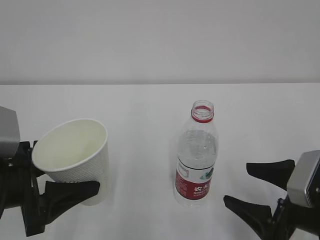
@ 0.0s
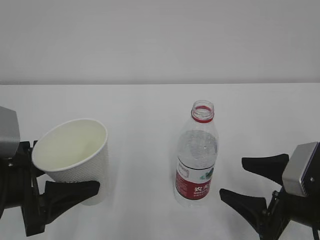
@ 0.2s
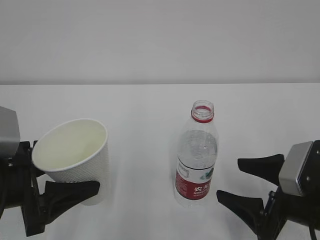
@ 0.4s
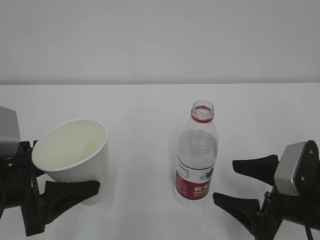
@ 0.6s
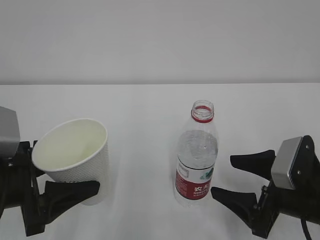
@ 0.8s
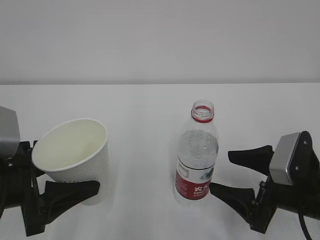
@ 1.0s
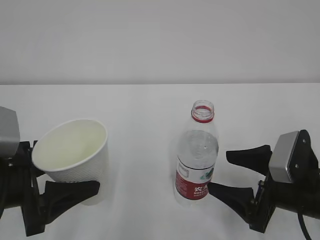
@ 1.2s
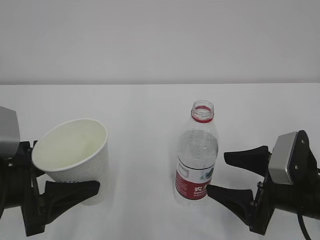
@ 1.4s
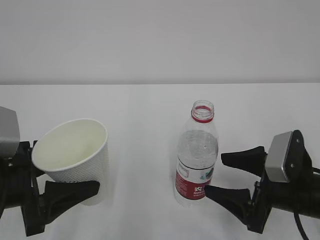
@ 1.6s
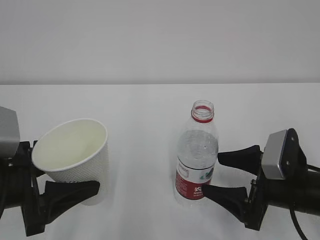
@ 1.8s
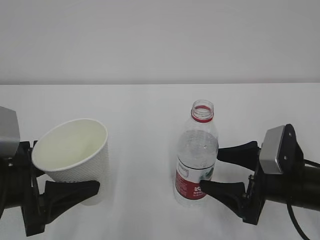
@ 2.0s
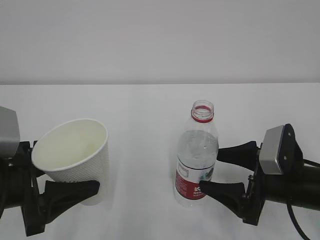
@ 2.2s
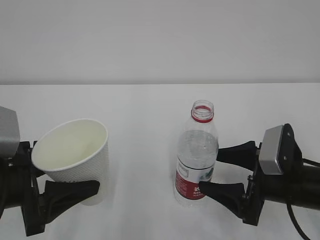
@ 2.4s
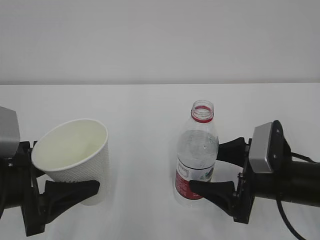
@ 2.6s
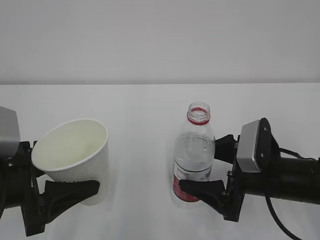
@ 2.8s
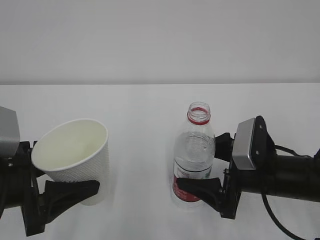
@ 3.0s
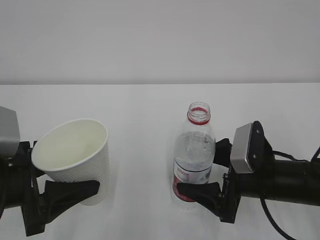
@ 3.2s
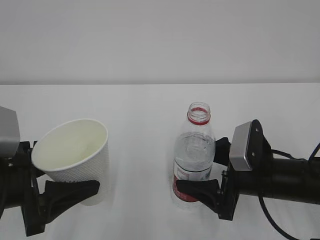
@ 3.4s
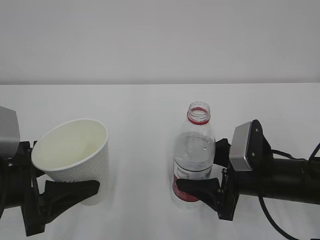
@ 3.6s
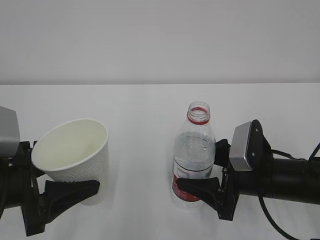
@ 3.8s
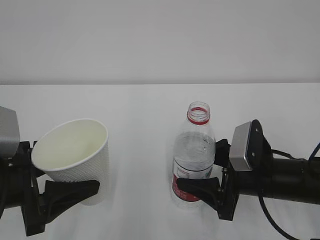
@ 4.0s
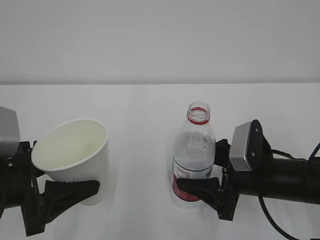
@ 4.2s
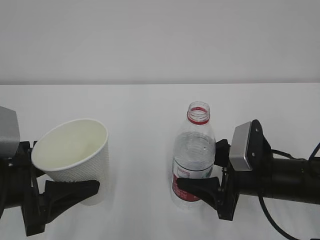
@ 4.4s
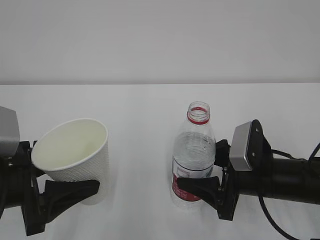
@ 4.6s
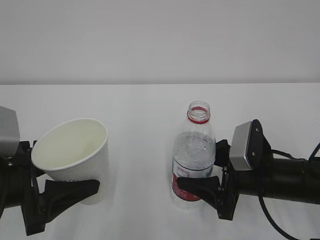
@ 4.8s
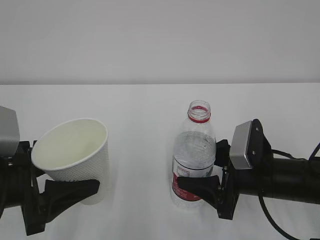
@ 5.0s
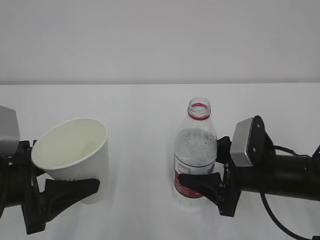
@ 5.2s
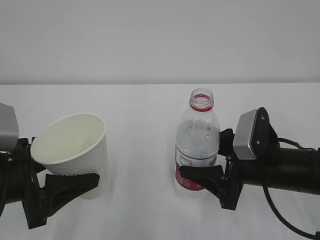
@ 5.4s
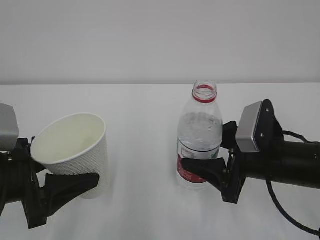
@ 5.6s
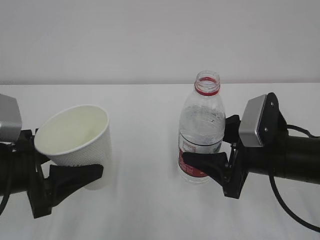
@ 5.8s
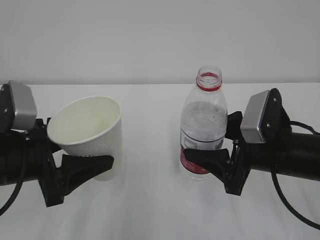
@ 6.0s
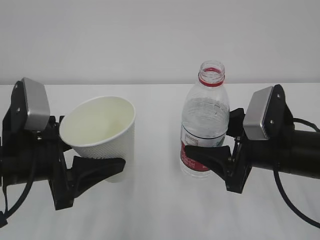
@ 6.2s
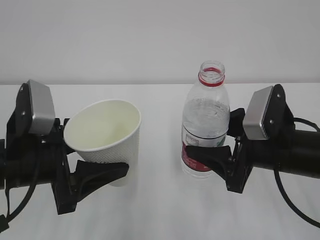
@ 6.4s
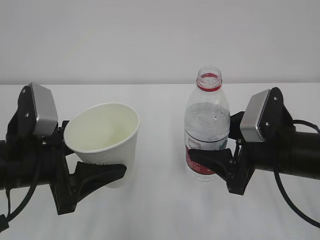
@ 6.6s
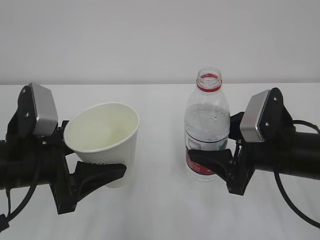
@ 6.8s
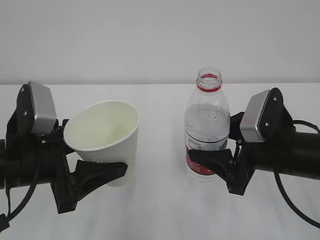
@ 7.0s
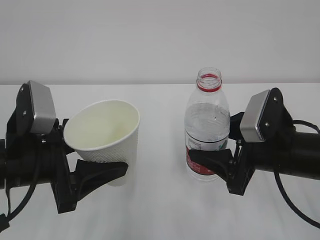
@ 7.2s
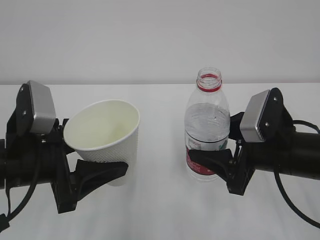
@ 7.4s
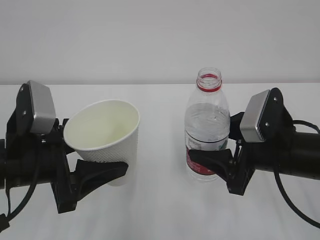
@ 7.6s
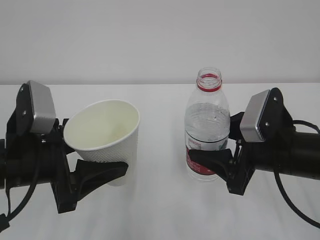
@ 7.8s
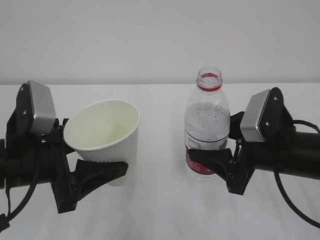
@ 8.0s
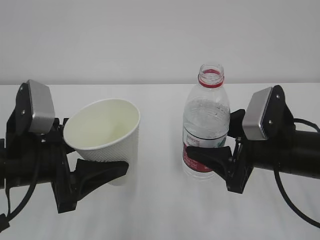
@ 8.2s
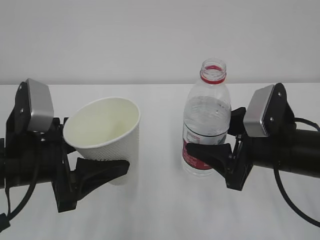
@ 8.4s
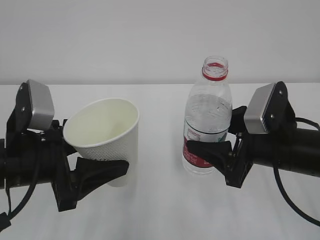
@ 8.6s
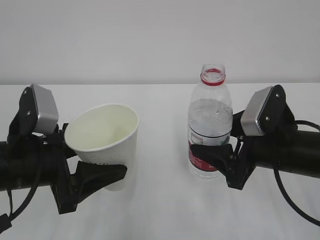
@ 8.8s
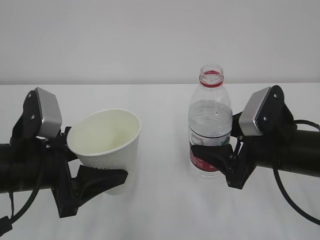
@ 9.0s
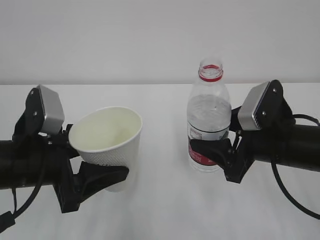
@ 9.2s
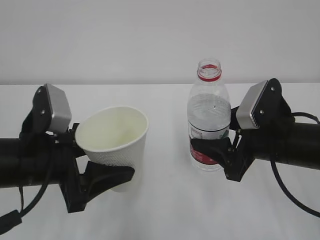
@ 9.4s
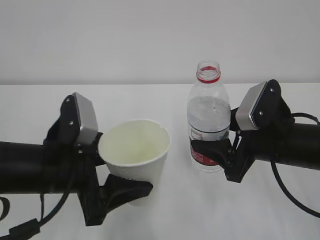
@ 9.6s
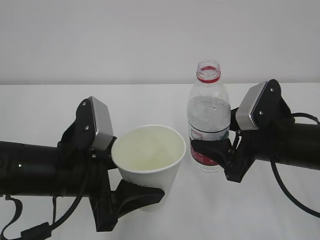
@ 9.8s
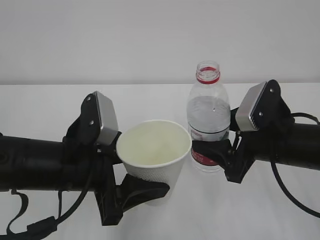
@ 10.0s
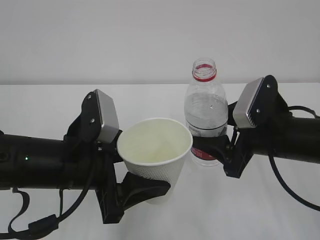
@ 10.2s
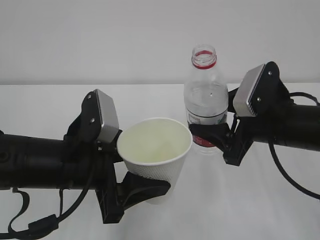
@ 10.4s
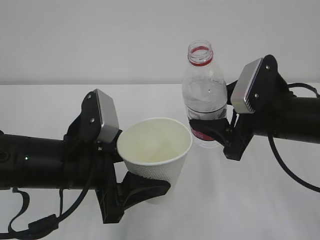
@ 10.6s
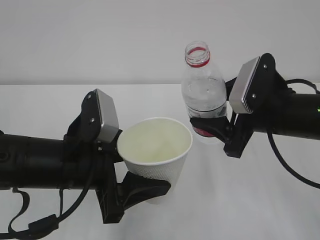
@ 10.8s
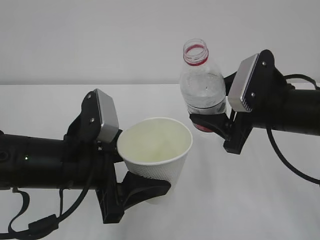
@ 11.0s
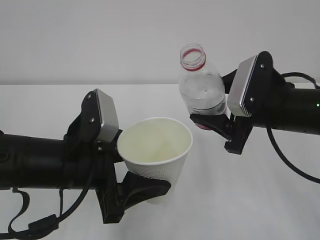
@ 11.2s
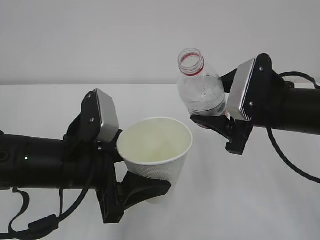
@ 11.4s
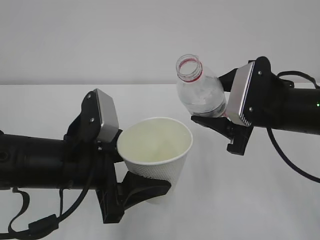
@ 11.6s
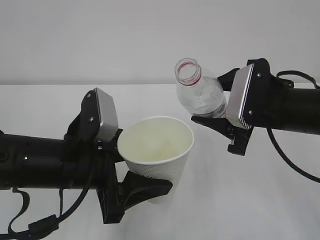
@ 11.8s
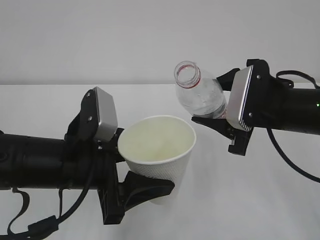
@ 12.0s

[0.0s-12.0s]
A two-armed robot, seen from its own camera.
0.0s to 1.6s: The grippers make only small movements.
1.6s to 3.0s: The grippers stay close to where they were, moving slightly.
3.0s to 4.4s: The right gripper closes its fingers.
4.4s to 6.0s: The right gripper is displaced upward by approximately 5 cm.
6.0s to 7.6s: The grippers stay close to where they were, moving slightly.
7.6s to 9.0s: Neither gripper changes place.
9.0s to 10.4s: The left gripper shifts roughly 5 cm to the right.

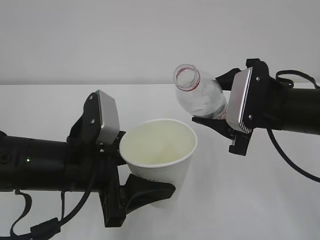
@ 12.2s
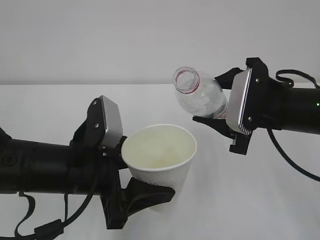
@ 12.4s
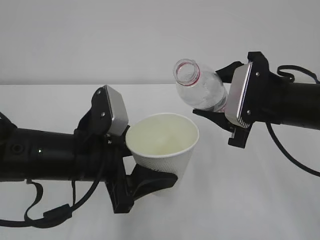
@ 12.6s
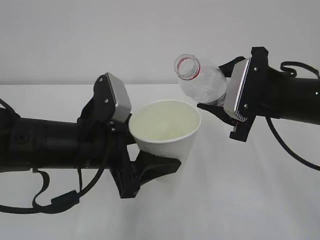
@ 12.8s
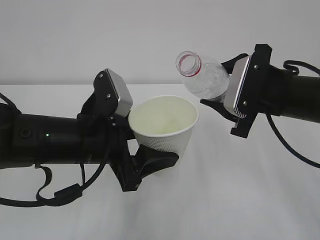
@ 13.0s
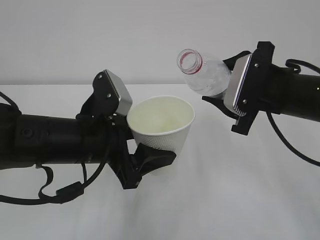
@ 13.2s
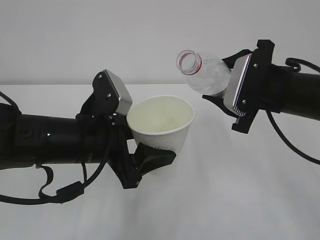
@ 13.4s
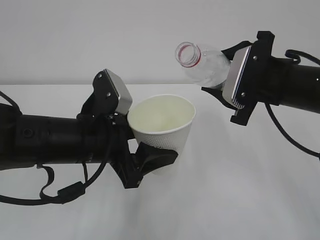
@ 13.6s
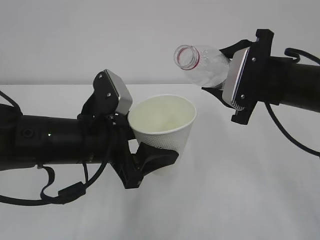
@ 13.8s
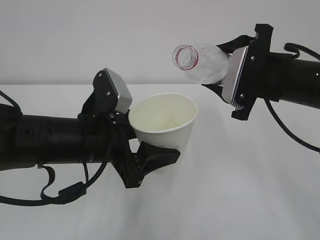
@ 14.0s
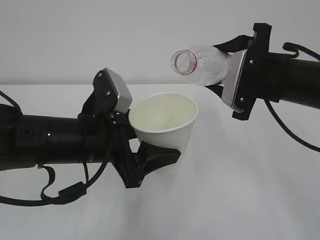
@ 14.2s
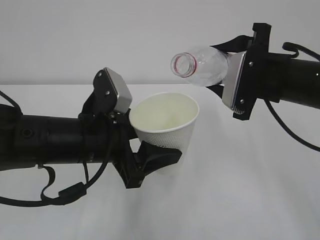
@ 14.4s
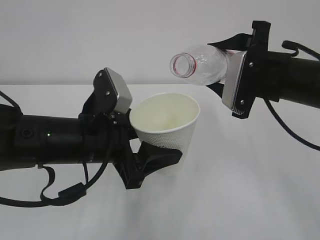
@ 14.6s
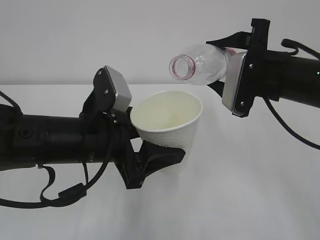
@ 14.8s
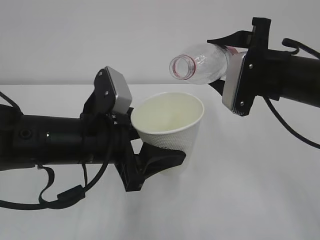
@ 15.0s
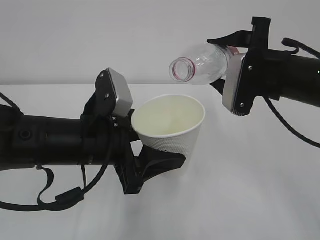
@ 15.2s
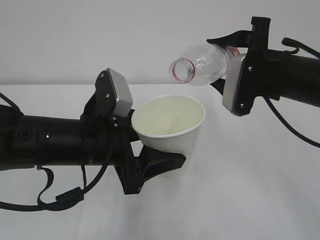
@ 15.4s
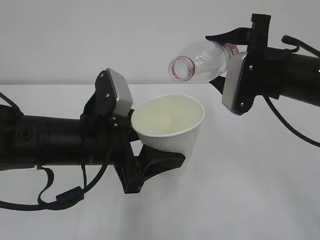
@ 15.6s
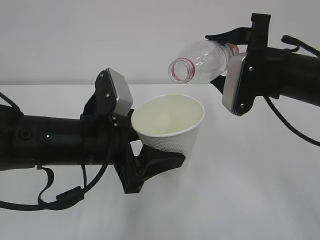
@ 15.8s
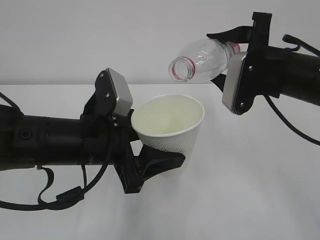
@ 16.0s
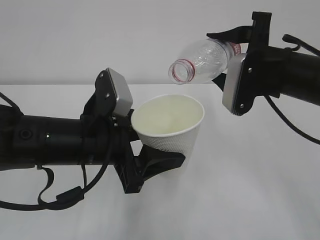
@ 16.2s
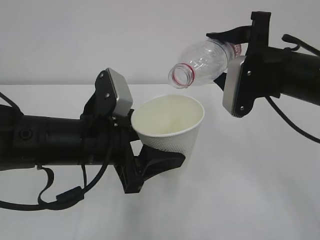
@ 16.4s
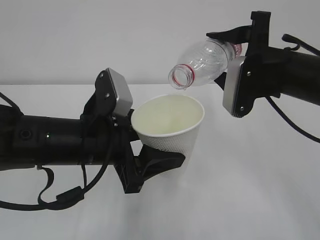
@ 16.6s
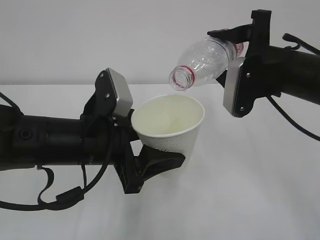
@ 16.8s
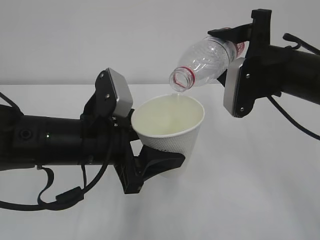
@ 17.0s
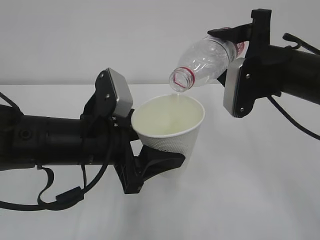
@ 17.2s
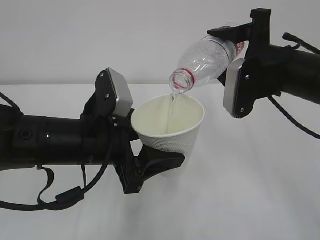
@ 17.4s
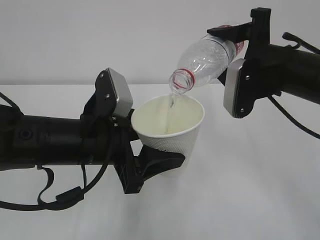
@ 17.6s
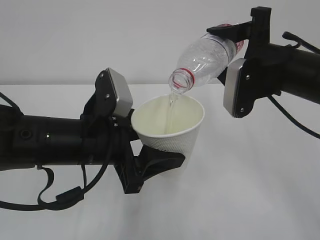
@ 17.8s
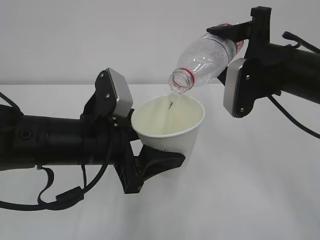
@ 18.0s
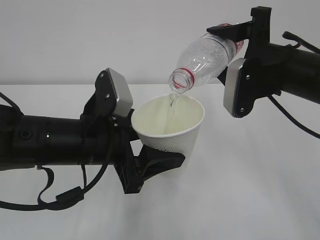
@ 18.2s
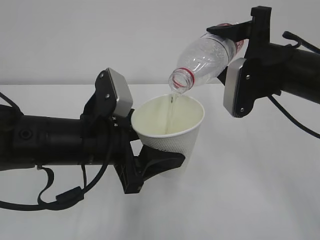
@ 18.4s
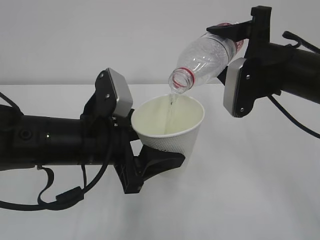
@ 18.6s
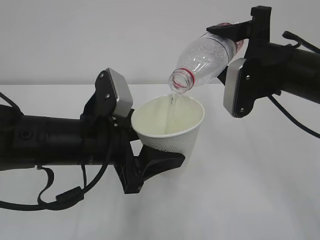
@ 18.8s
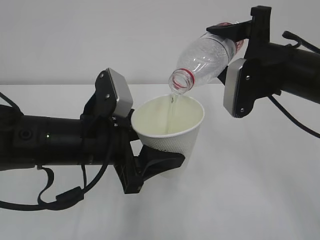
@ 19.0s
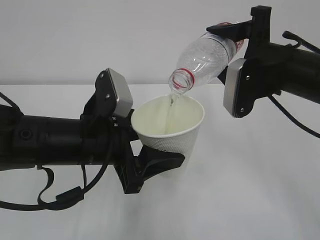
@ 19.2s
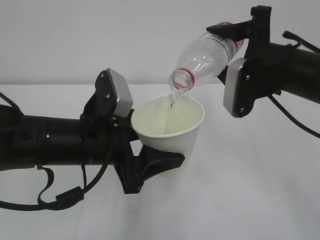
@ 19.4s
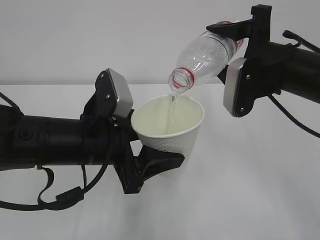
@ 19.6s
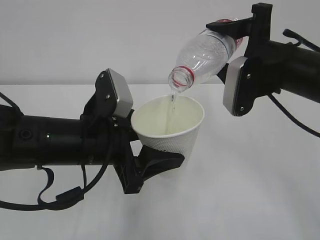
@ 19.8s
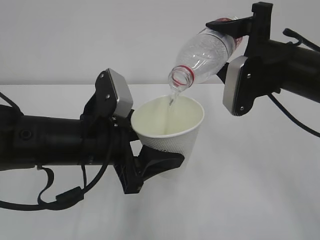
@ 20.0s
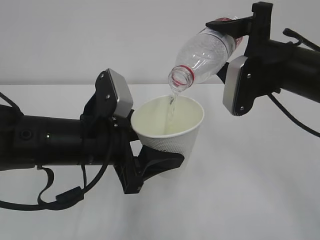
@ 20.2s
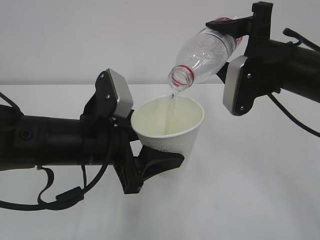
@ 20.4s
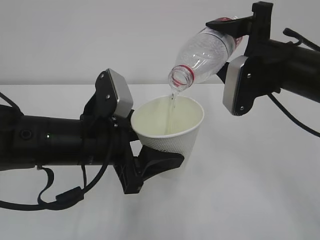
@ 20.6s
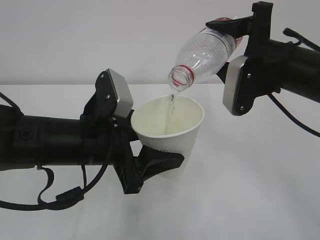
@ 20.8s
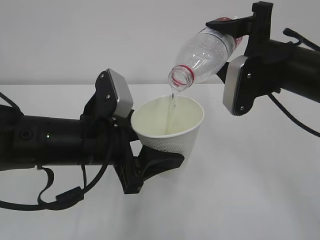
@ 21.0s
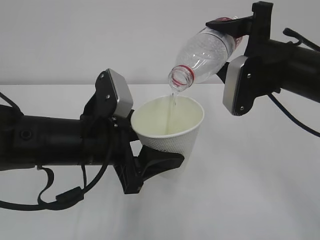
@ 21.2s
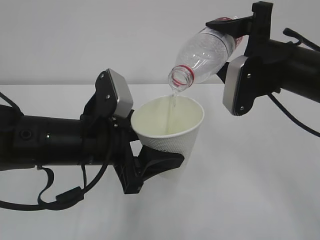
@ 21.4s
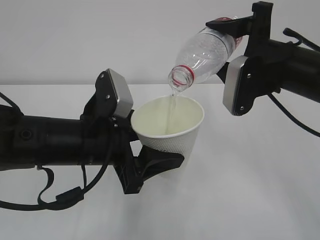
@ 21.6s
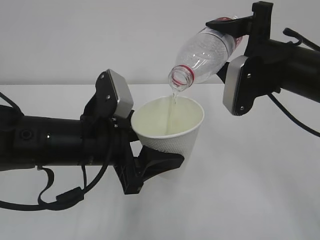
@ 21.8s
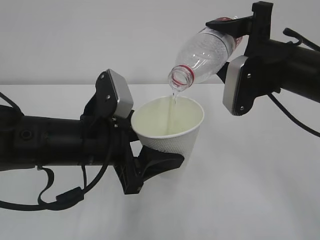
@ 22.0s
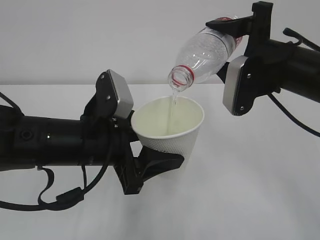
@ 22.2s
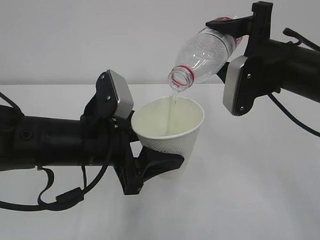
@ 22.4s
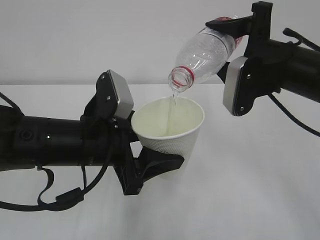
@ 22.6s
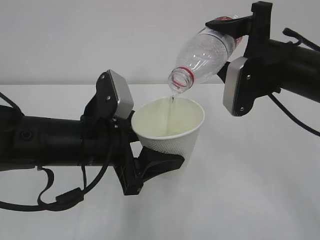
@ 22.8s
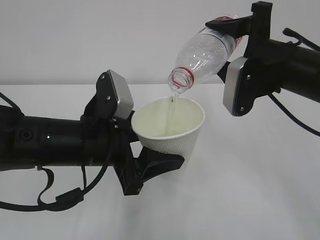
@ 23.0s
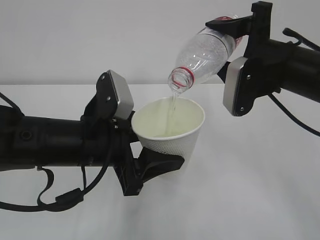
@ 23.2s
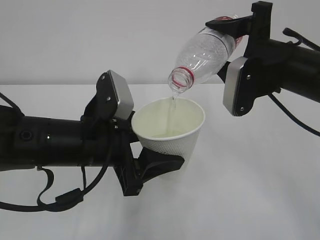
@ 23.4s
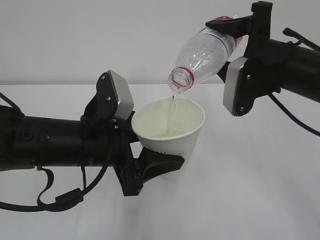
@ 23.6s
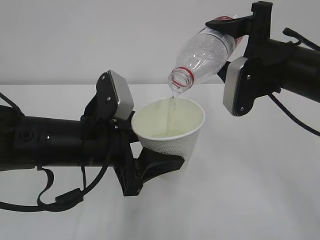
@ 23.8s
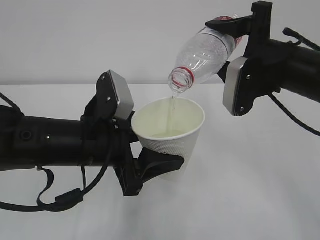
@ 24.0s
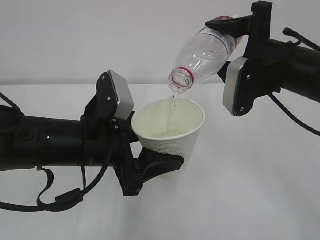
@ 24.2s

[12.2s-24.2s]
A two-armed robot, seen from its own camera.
13.8s to 15.2s: The grippers make only small movements.
15.2s to 18.2s: The grippers make only small movements.
18.2s to 24.2s: Both grippers stay put.
